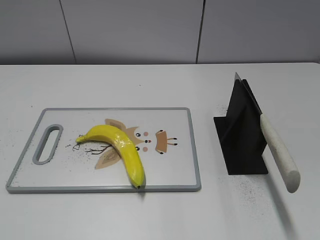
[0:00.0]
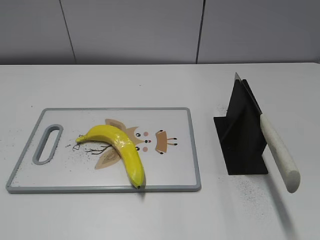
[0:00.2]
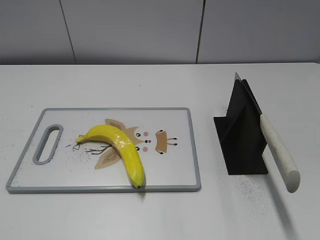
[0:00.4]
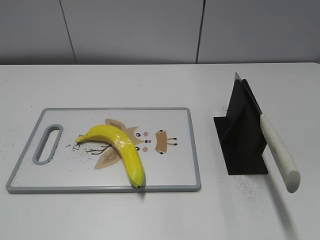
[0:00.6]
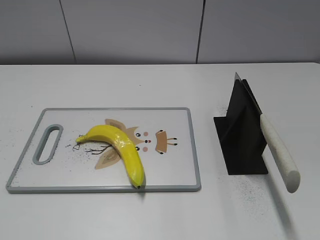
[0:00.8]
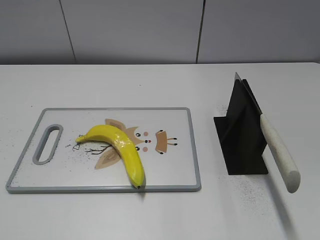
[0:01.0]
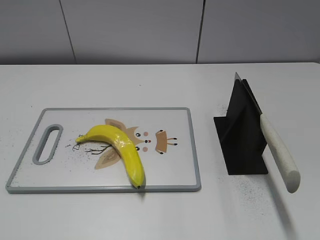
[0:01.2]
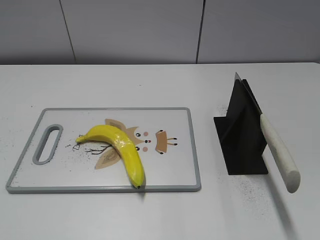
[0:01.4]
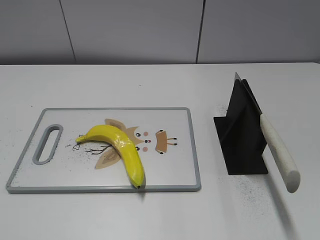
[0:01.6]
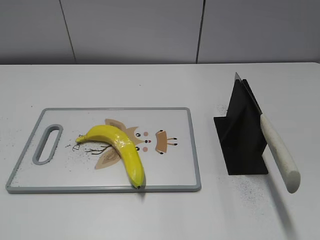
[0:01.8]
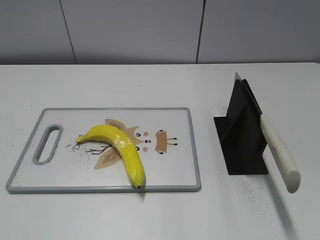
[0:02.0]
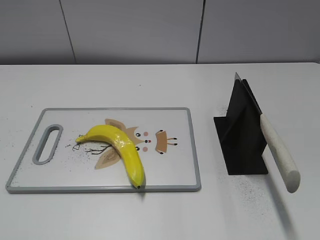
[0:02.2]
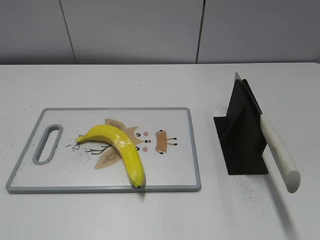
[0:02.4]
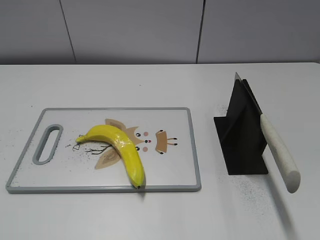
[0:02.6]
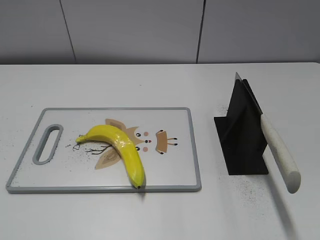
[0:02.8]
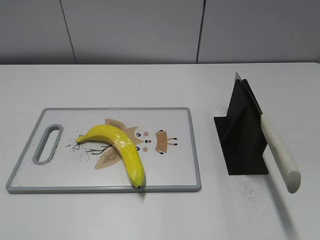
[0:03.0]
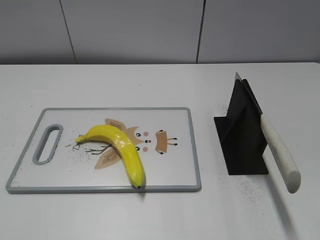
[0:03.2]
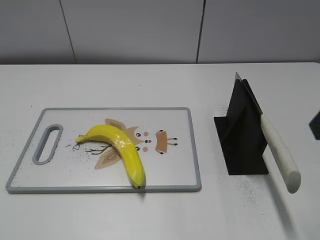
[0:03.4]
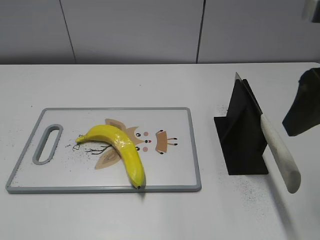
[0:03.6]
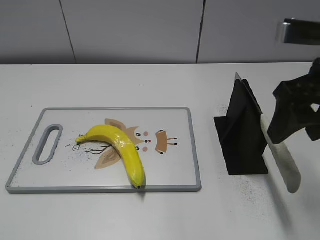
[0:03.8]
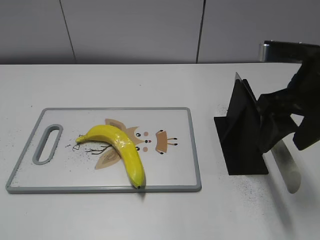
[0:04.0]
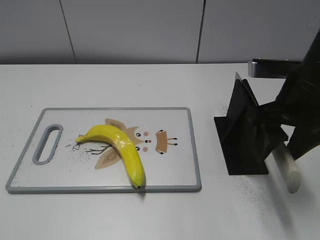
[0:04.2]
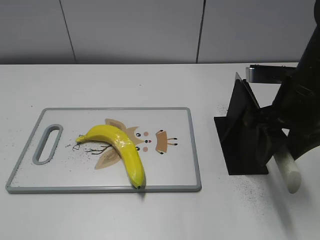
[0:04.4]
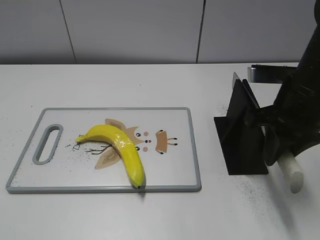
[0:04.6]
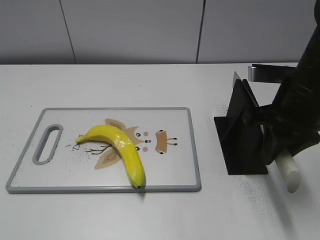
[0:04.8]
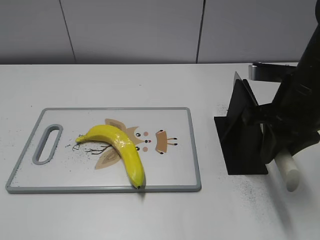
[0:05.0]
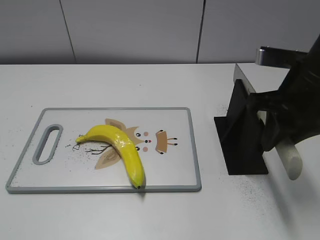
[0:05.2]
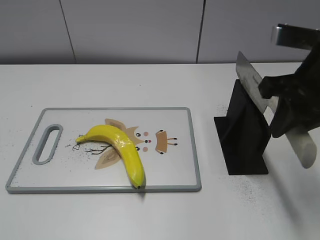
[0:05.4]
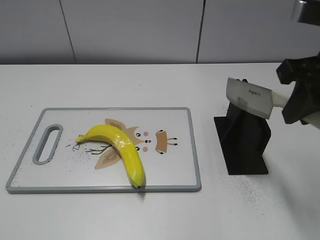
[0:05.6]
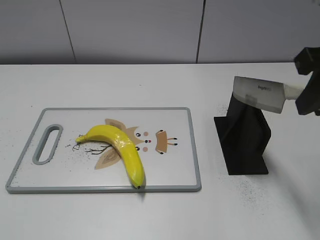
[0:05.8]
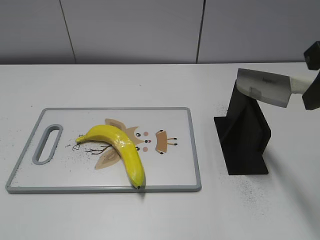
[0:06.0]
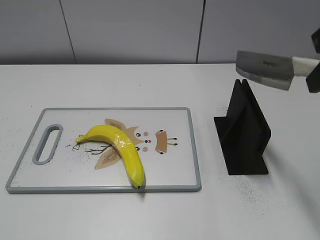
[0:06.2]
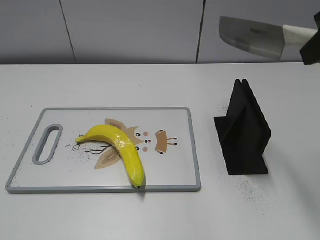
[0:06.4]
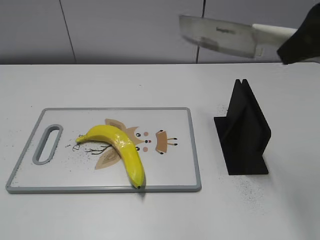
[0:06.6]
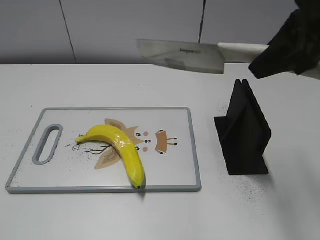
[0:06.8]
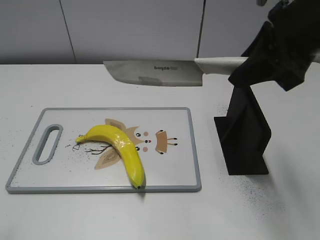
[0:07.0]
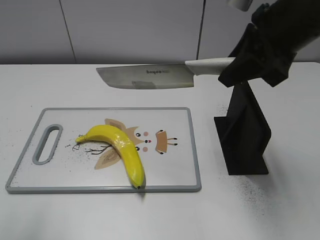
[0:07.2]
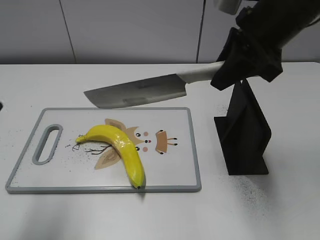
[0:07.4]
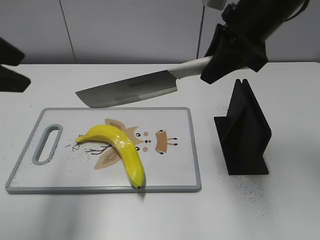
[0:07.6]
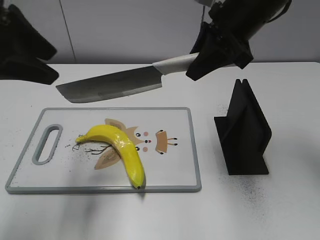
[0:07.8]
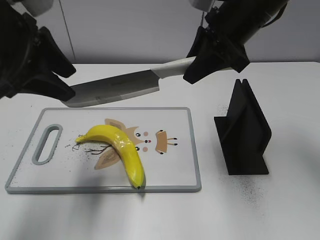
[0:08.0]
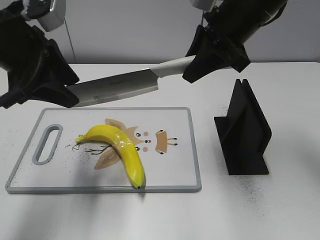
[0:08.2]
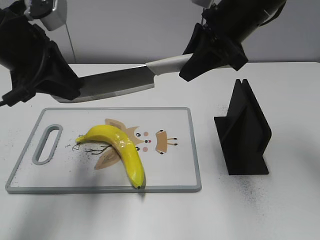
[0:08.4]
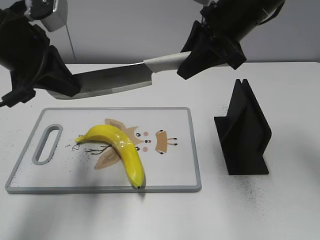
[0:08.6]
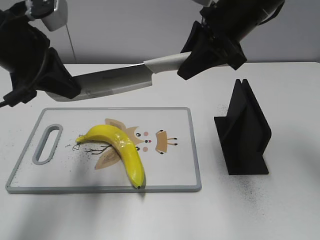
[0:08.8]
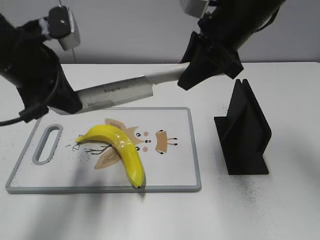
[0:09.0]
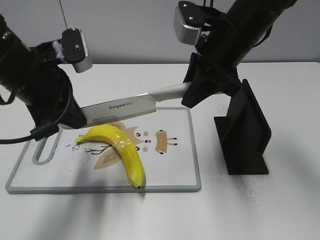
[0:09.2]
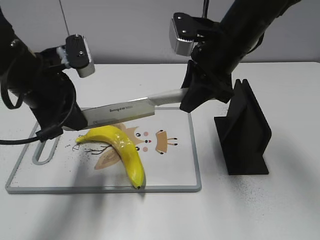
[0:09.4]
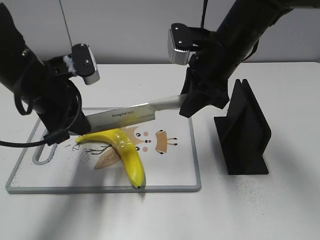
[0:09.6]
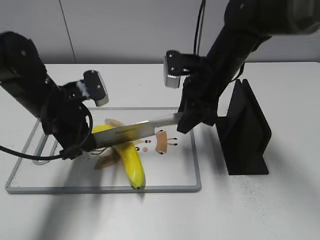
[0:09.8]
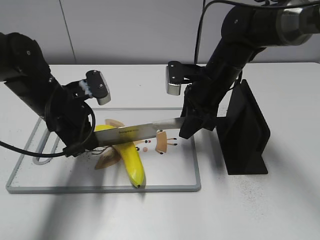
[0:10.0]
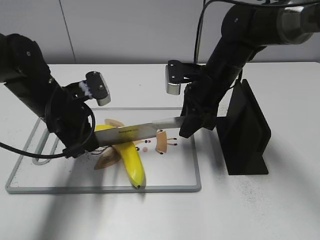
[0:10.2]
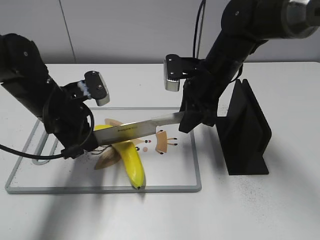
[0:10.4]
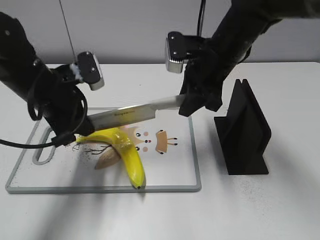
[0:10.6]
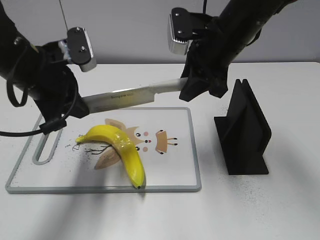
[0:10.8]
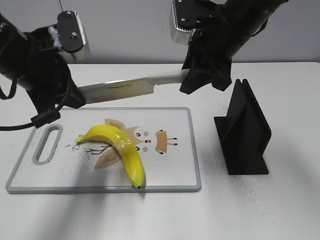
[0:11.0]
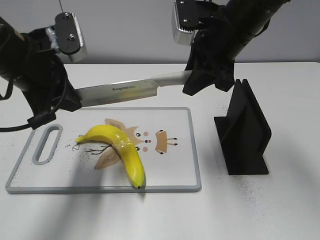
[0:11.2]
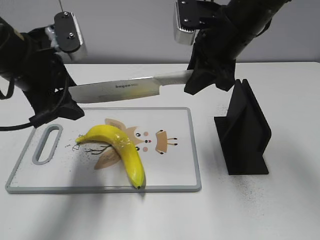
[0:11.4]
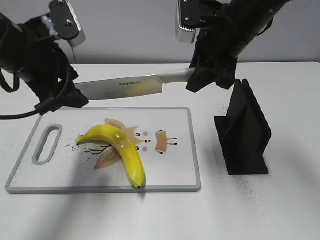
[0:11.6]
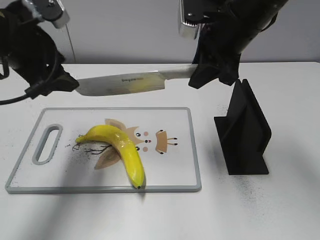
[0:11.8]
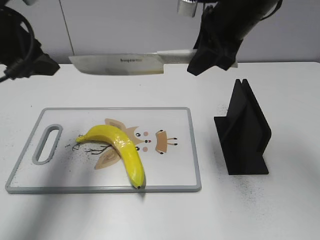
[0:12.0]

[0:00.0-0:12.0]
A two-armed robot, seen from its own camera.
Task of the whole recording: cut plastic banana.
Step, 0.0 to 6.0 s: Grab the knife handle with your right hand.
Step, 6.2 to 10.6 s: Lift the knife with your right hand.
3.0 to 4.4 s: The right gripper travels forward, downward and to the left by about 20 cm, and closes.
4.4 to 6.0 s: The right gripper heads upward and backward, covering some 10 cm, and closes its fingers.
6.0 to 7.6 s: The right gripper is displaced forward and to the left by some 15 cm; the left gripper moves forward, about 20 cm.
7.6 to 9.0 s: The left gripper travels forward, downward and to the right by about 10 cm, and closes its fingers.
9.0 to 10.4 s: Both grippers travel together downward, some 10 cm.
10.4 to 12.0 s: The grippers both shift upward by approximately 15 cm. The left gripper opens up.

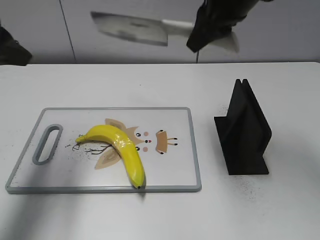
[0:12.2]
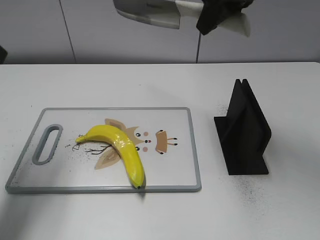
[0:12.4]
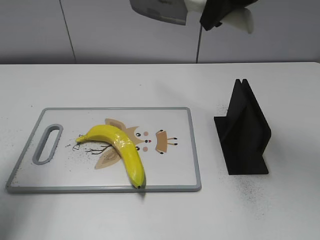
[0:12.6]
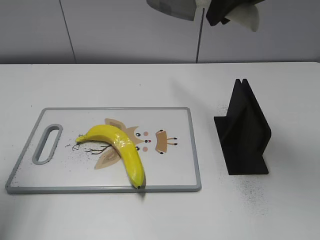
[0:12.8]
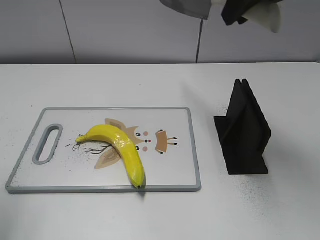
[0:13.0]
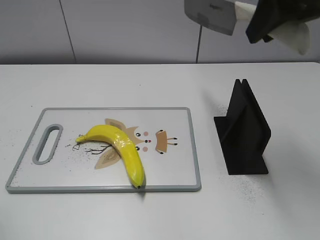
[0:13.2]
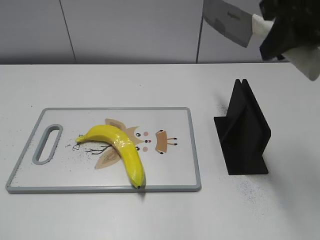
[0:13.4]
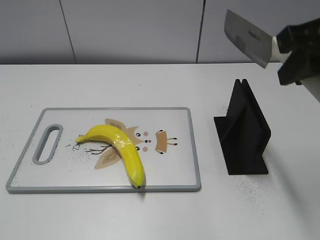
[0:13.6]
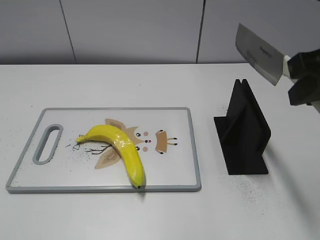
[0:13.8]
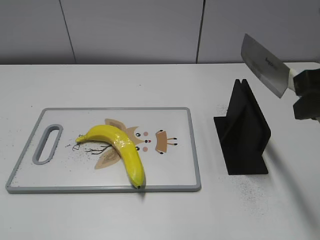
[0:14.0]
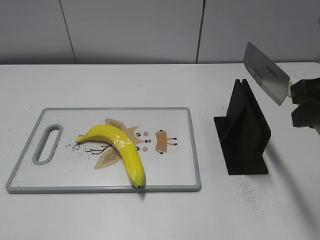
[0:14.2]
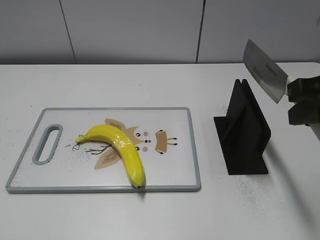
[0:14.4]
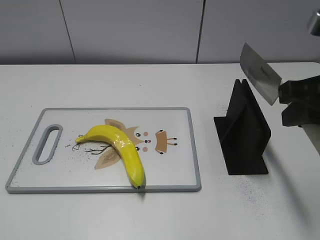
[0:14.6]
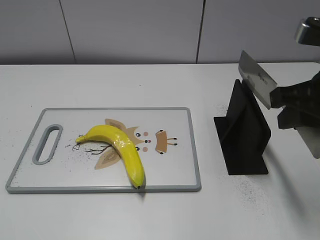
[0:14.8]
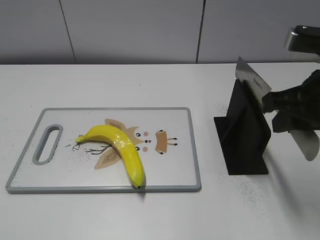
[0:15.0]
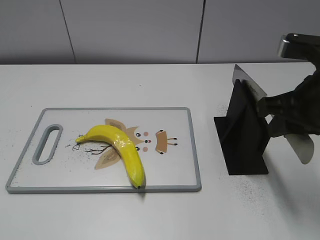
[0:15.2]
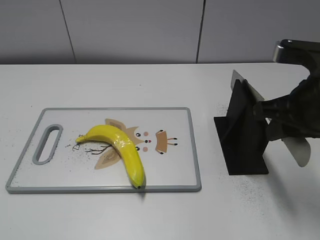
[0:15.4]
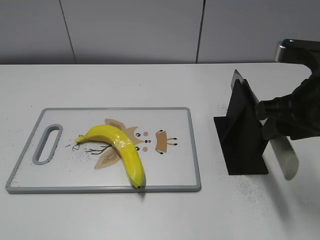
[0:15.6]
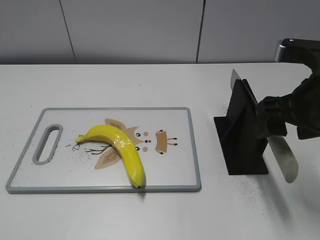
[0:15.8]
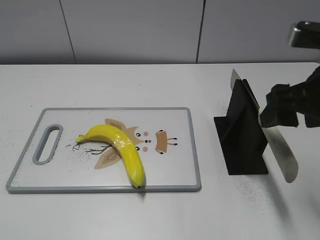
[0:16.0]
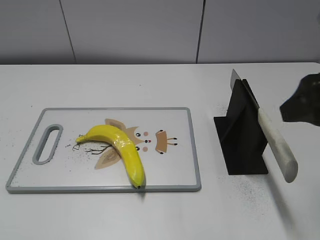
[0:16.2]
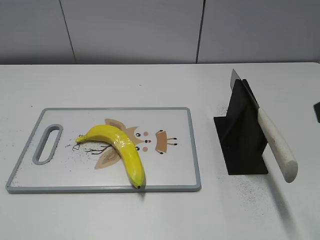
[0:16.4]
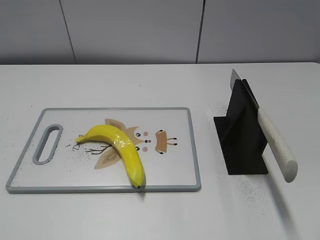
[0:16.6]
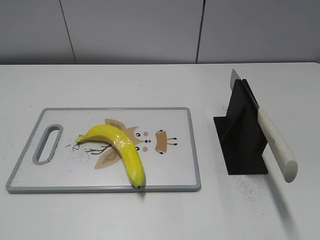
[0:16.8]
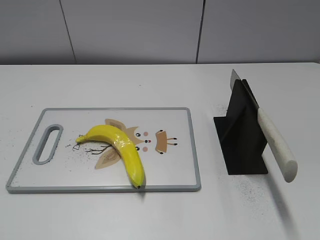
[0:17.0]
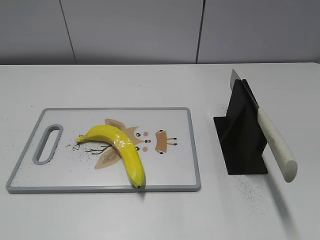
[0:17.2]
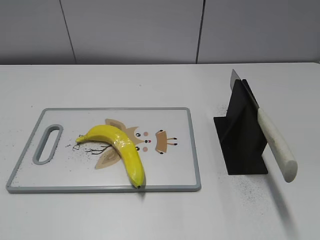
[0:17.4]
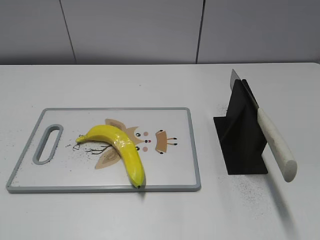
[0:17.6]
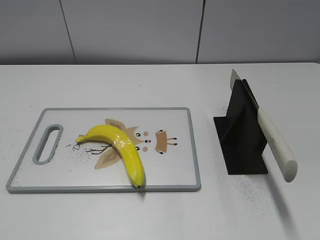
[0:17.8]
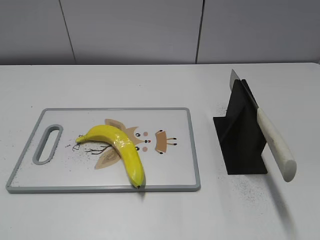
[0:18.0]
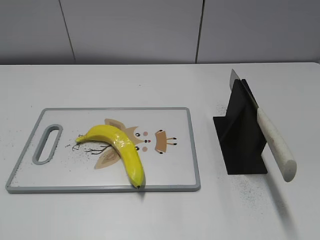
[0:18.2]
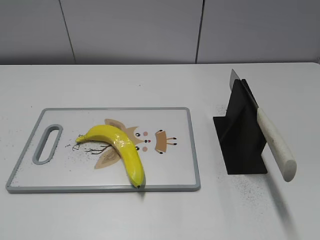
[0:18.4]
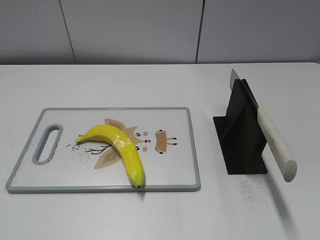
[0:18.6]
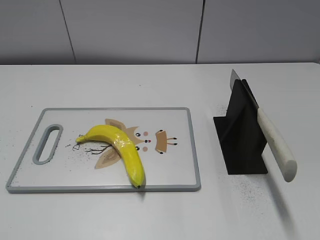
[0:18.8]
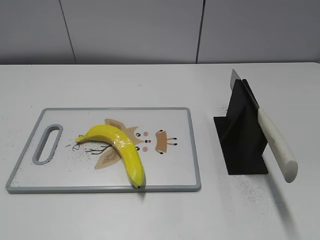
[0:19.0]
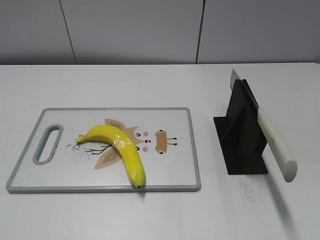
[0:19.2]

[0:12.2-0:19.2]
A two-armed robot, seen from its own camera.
Task of the whole recording: cut plastic banana.
Step, 12.8 to 14.0 s: Lift the knife with your right hand.
Step, 14.2 to 19.2 s: Place the knife on the storage rack with your right hand.
12.2 to 13.6 s: The right gripper heads backward and to the right, covering roughly 15 cm; the left gripper goes some 25 cm backward.
13.6 to 15.0 s: The right gripper heads downward, covering roughly 10 cm.
15.0 to 16.4 s: The right gripper is displaced backward and upward by approximately 10 cm, and opens its fingers.

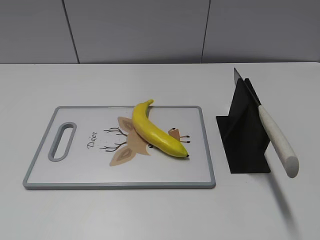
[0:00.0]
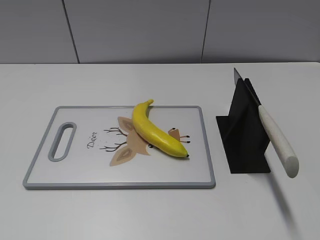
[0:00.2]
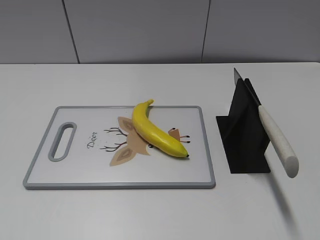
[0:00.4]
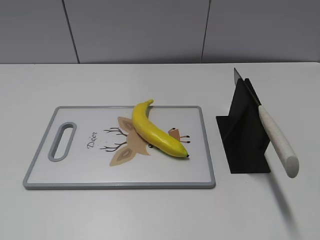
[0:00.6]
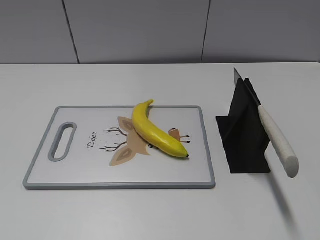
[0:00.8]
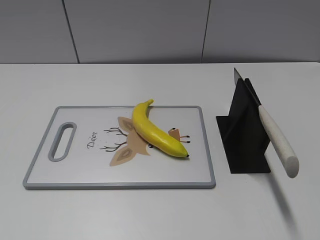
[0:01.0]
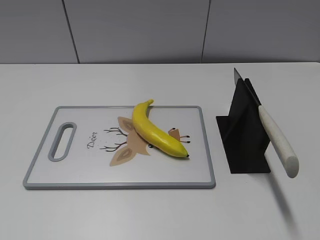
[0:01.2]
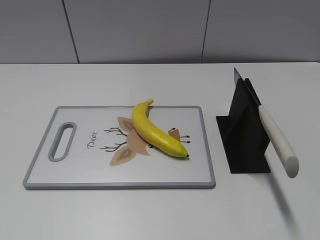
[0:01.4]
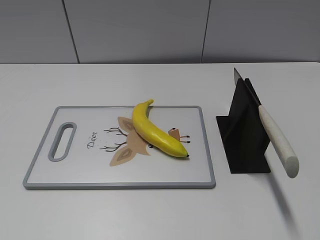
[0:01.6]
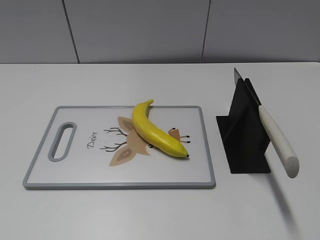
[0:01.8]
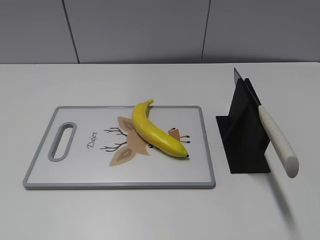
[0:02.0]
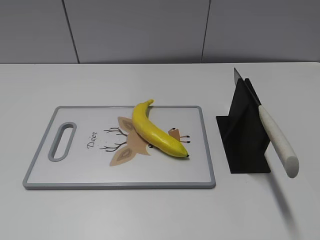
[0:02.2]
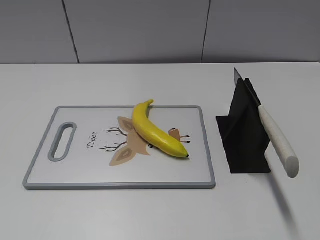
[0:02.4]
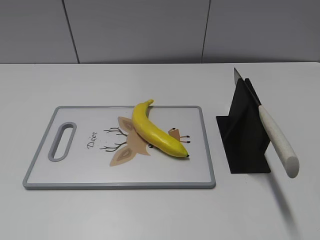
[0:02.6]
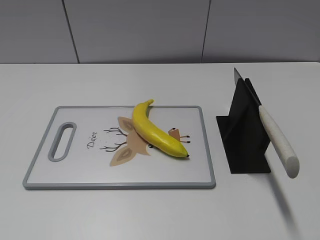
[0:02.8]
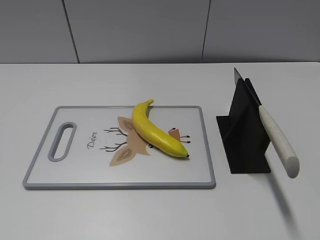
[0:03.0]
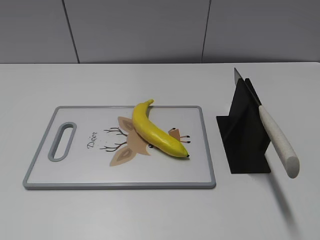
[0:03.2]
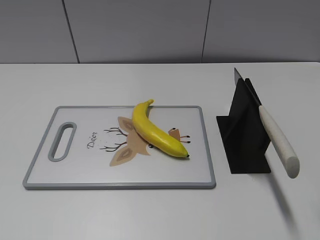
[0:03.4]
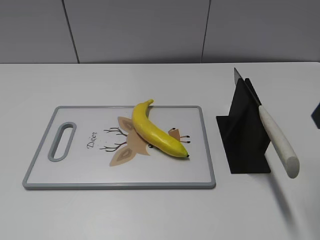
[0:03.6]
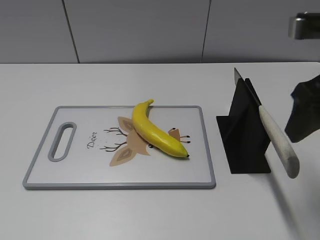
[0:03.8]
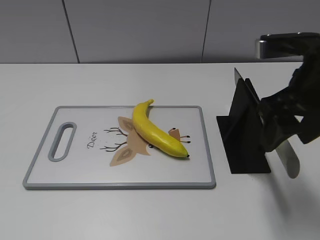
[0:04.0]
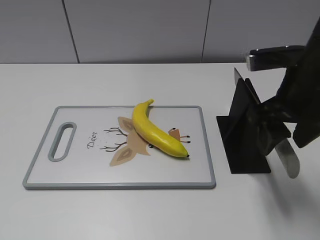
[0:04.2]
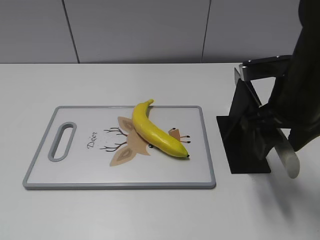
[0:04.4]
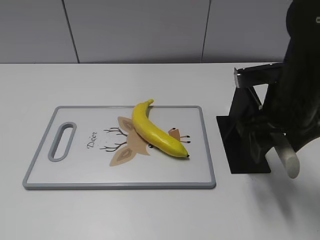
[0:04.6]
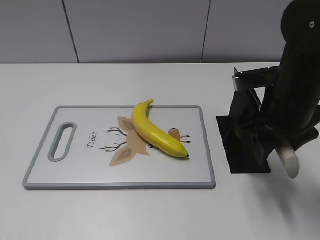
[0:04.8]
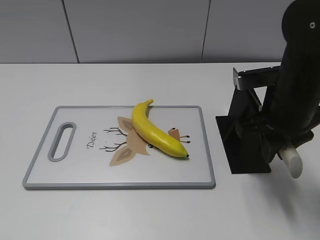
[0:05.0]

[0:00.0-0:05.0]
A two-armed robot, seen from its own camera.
Task of the whole recording: cut plastic banana.
3.4 to 5.0 s: The right gripper travels downward, to the left and forward by about 15 cm, and closes.
